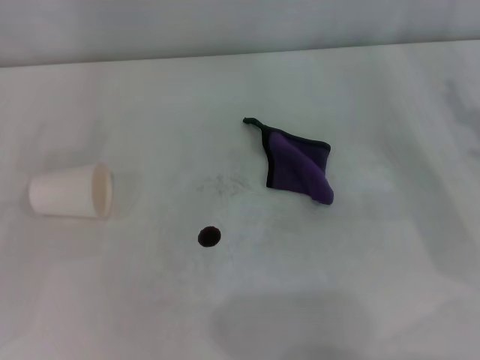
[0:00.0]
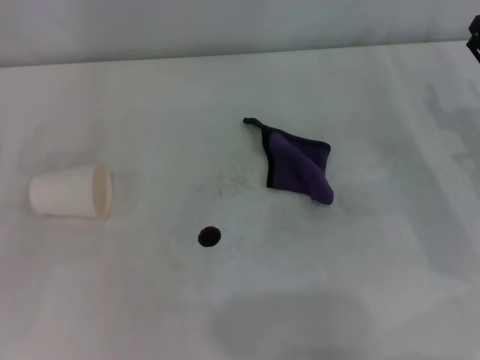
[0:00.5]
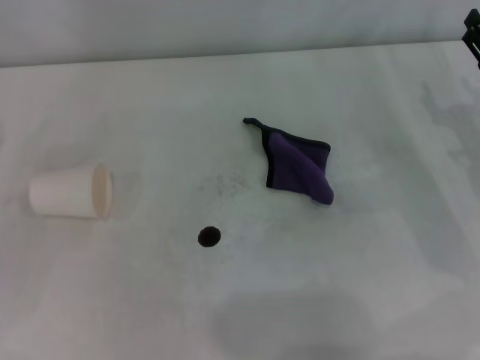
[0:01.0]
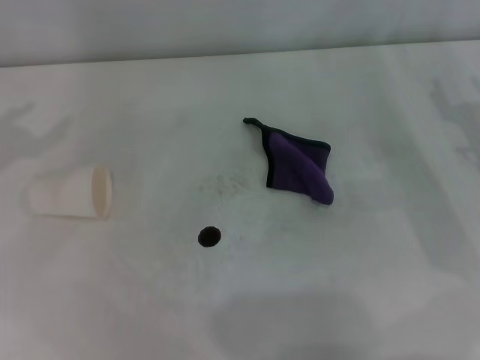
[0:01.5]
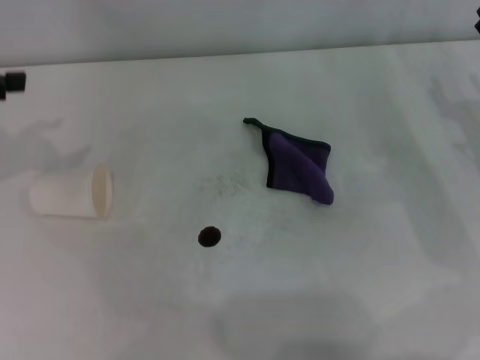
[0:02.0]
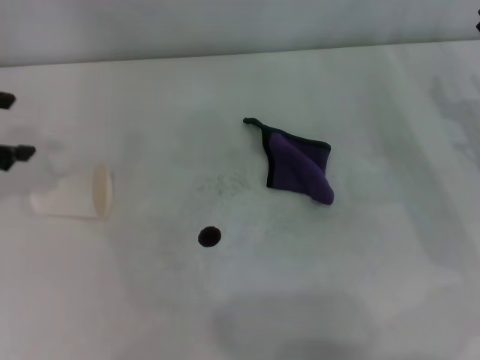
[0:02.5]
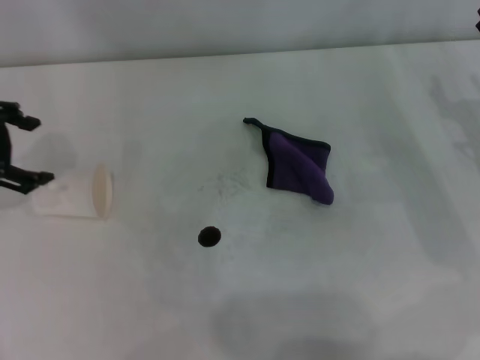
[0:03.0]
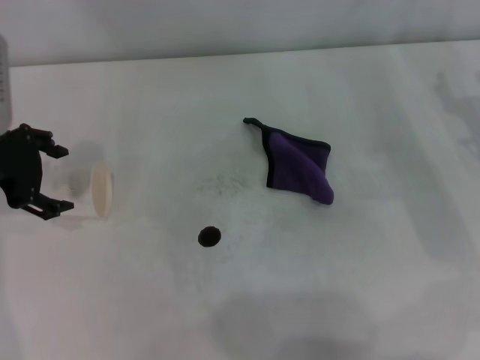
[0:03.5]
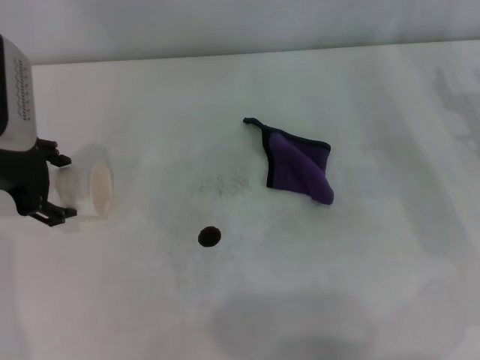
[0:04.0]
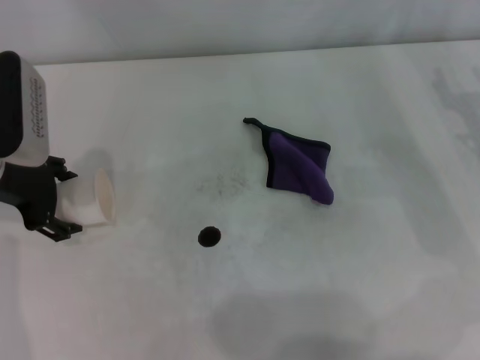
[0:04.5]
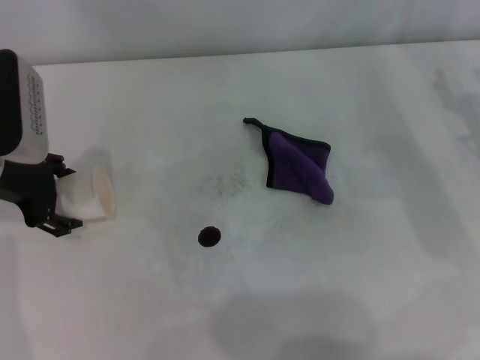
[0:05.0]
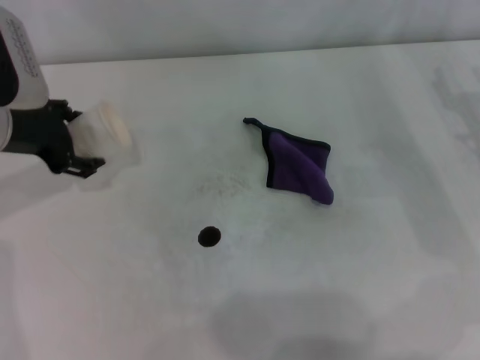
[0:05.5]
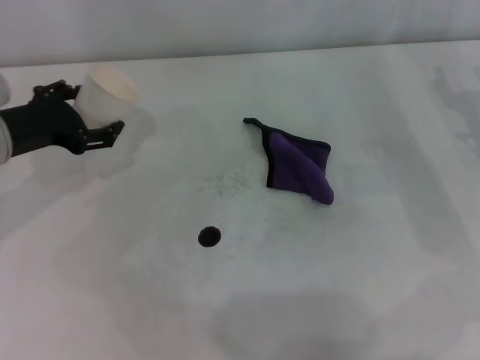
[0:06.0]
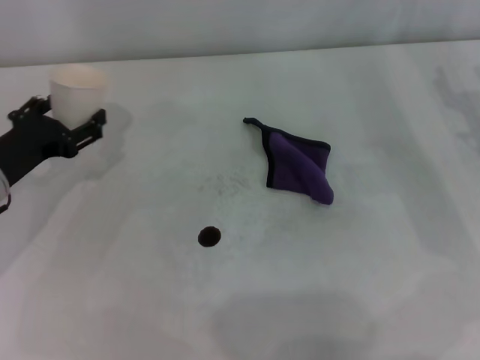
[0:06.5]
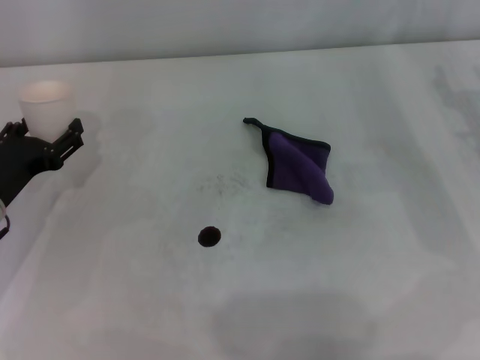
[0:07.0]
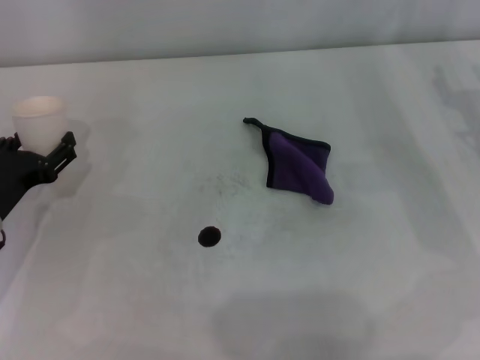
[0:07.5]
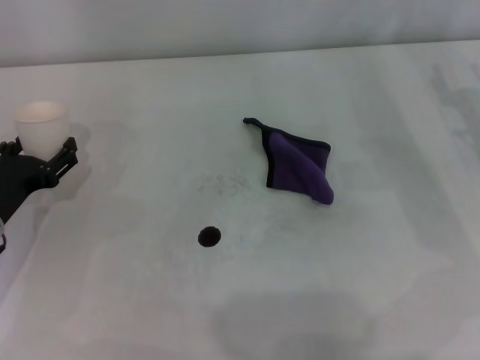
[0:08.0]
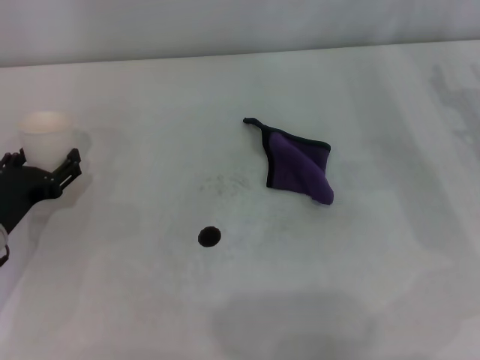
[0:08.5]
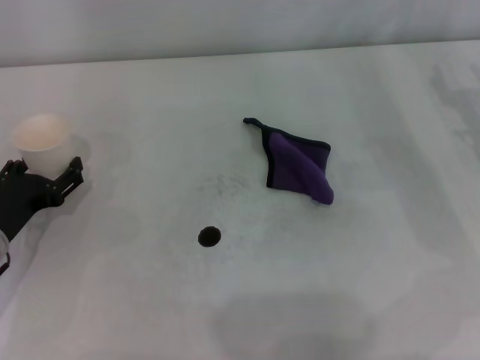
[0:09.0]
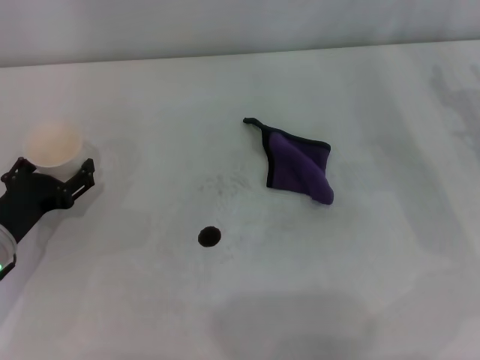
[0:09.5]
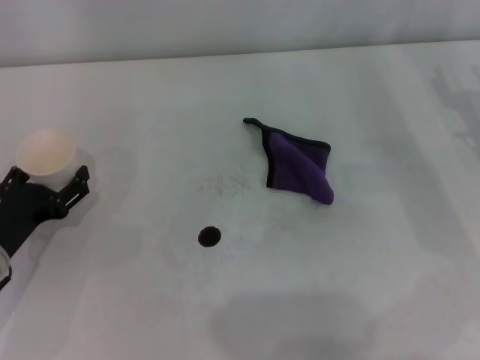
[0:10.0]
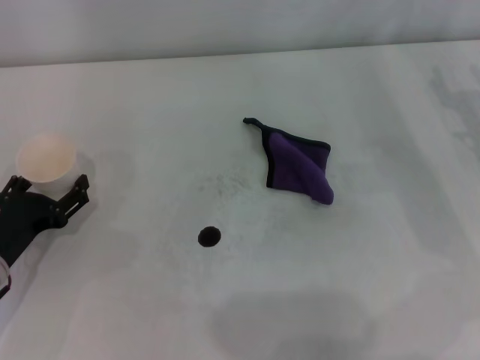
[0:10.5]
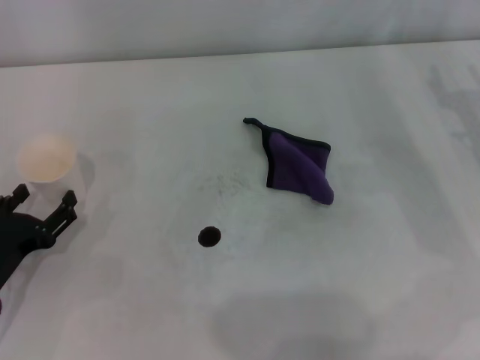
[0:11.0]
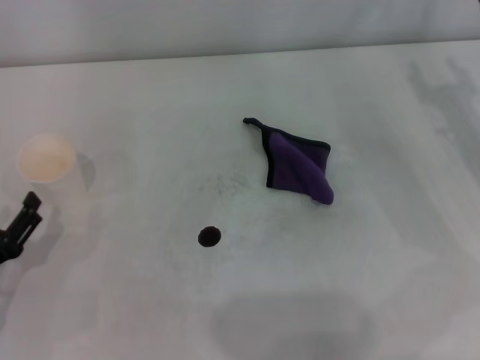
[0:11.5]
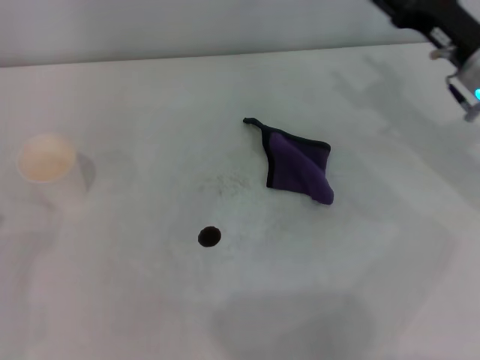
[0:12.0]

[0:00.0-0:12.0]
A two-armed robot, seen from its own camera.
Step, 0:00.0 to 0:04.5: Grasp the paper cup with the left gripper.
Step, 0:05.0 to 0:10.0: Stand the paper cup upright with the left gripper.
0:02.0 to 0:04.0: The left gripper travels to the right and downward by some 10 cm.
0:06.0 to 0:08.0: The left gripper heads downward and backward, covering roughly 10 cm.
0:08.0 to 0:10.0: The grippers move only a little.
0:10.0 to 0:12.0: The right gripper heads to the left, covering about 5 cm. Meanwhile the left gripper goes about 10 cm backward and to the left.

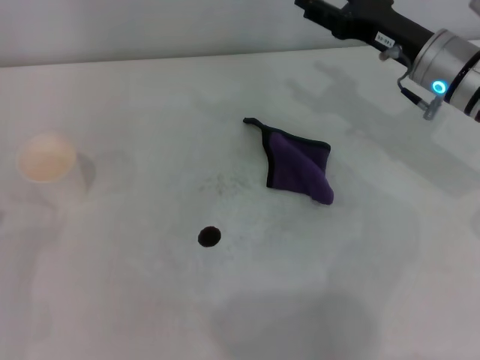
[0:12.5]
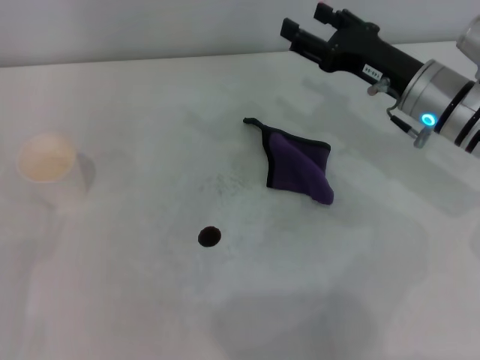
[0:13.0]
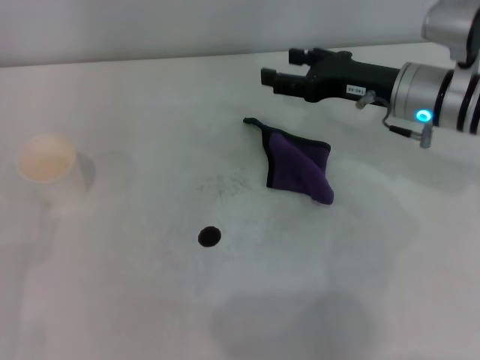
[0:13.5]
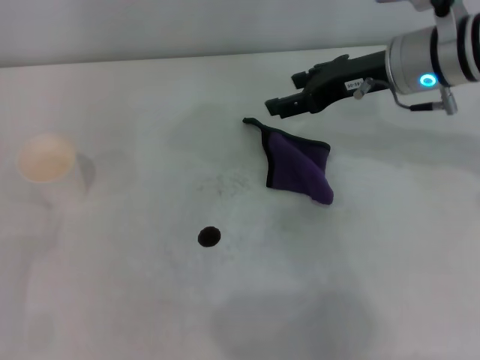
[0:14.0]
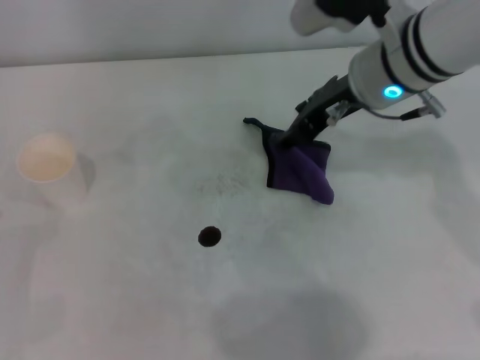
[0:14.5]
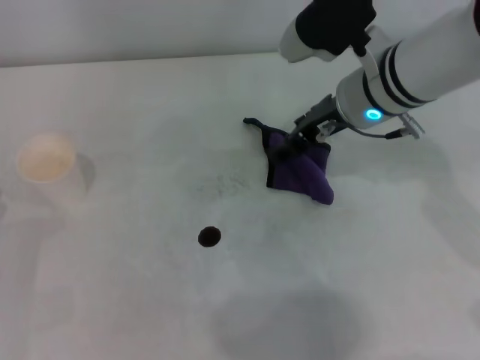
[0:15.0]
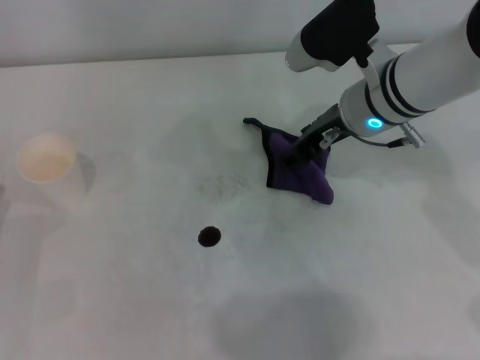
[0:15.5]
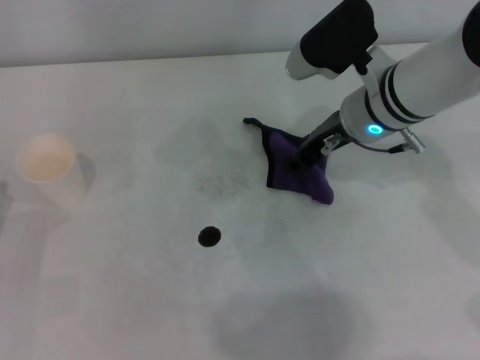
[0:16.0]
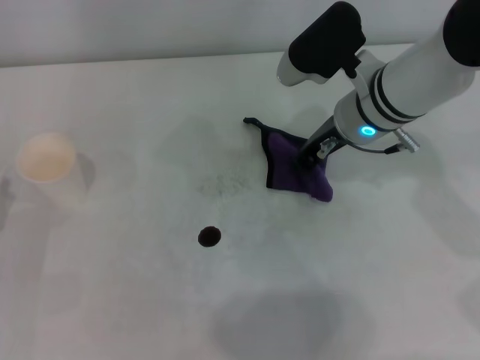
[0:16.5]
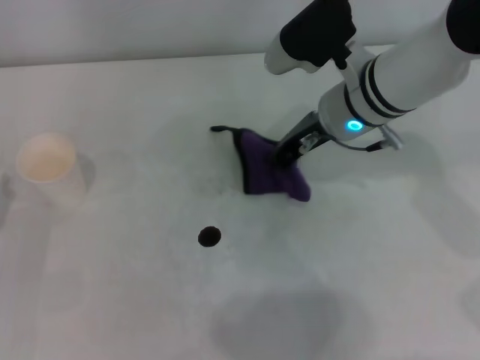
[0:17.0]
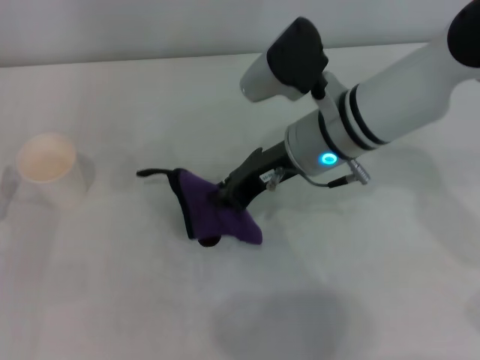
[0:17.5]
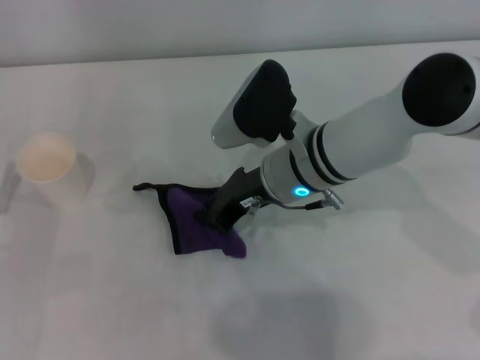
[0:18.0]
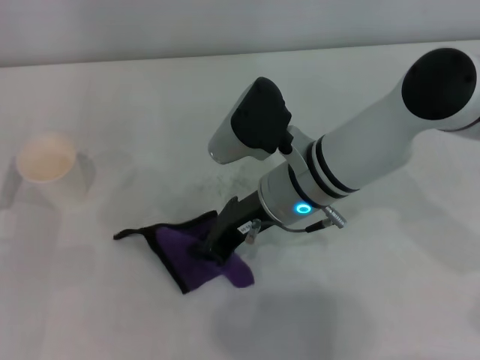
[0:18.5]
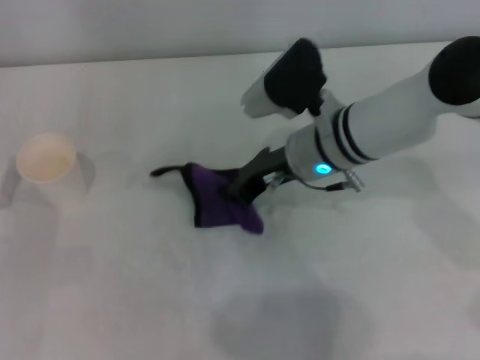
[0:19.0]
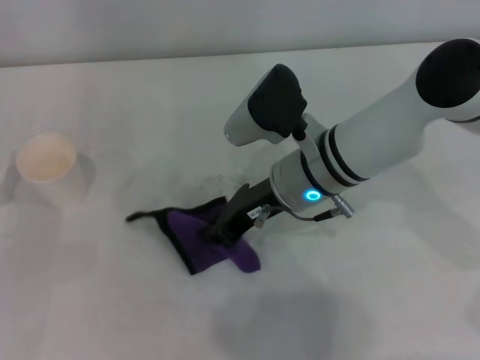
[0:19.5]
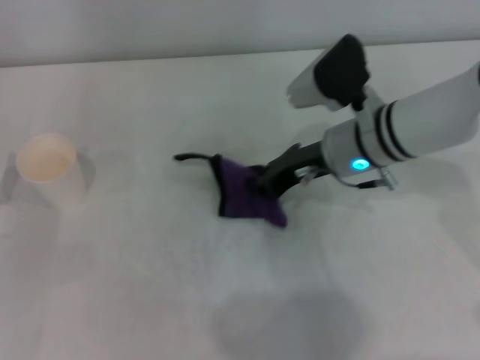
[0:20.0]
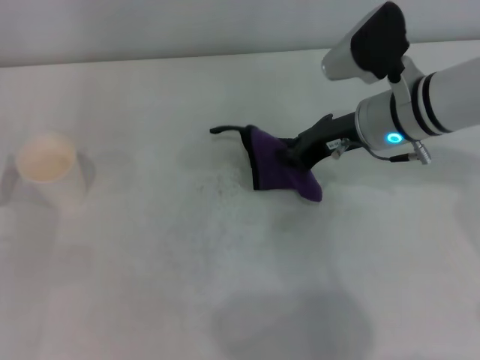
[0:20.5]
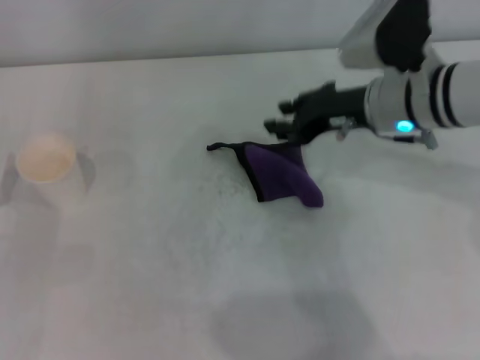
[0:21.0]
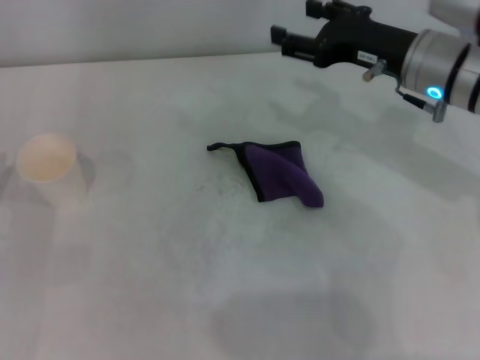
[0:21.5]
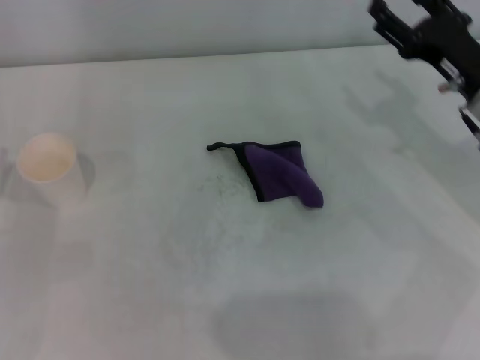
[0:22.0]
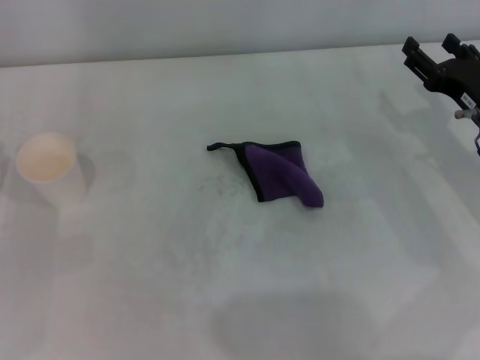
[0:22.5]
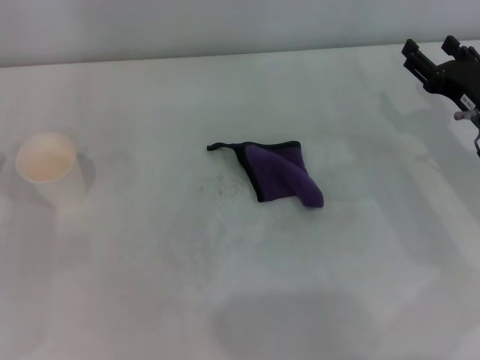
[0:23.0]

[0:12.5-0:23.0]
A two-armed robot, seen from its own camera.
Step, 0:12.5 to 0:16.5: Grasp the rag with the right gripper.
Step, 0:17.0 to 0:19.5: Wipe the stains off the table with the right gripper.
0:12.5 to 0:14.5: The right gripper is displaced to the left and upward by roughly 10 cm.
0:14.5 to 0:16.5: The right gripper shifts approximately 5 cm downward, and closes.
0:19.0 to 0:21.0: The right gripper shifts about 10 cm to the right.
0:21.0 to 0:23.0: The right gripper travels to the right and downward by approximately 15 cm, and opens.

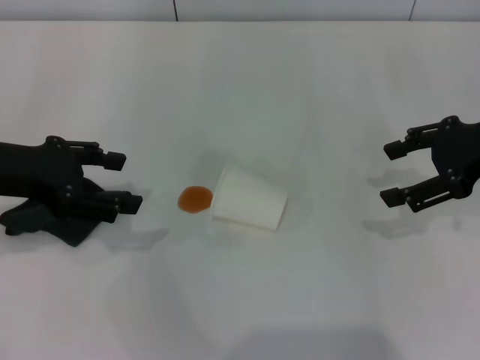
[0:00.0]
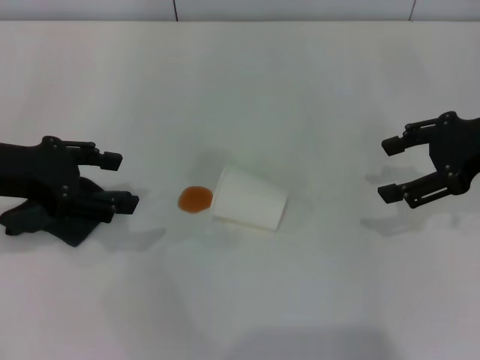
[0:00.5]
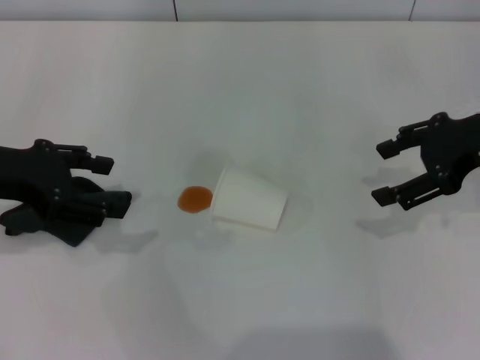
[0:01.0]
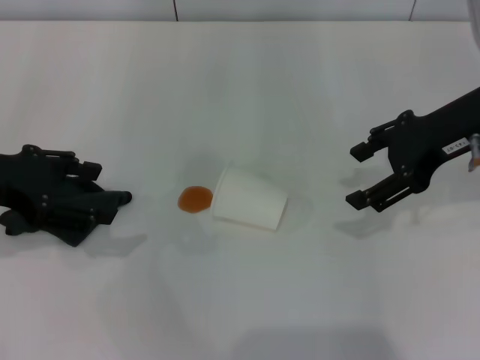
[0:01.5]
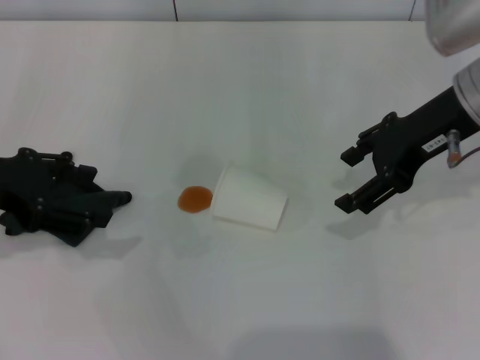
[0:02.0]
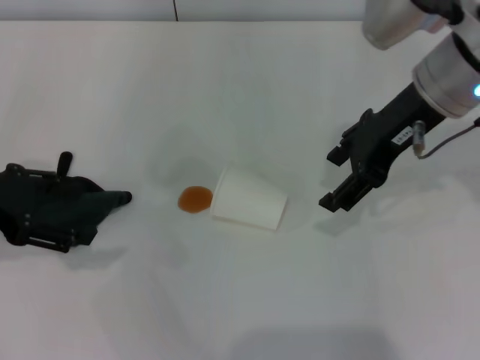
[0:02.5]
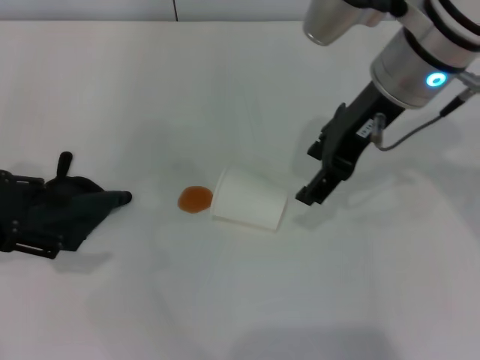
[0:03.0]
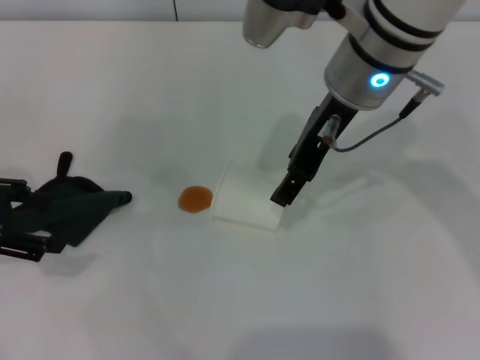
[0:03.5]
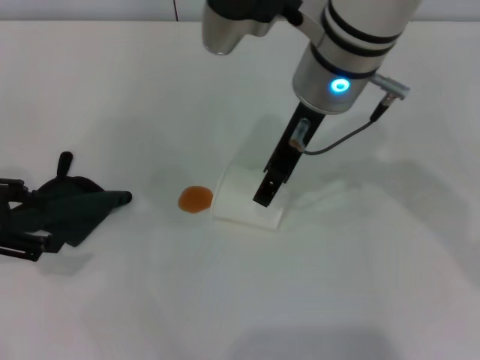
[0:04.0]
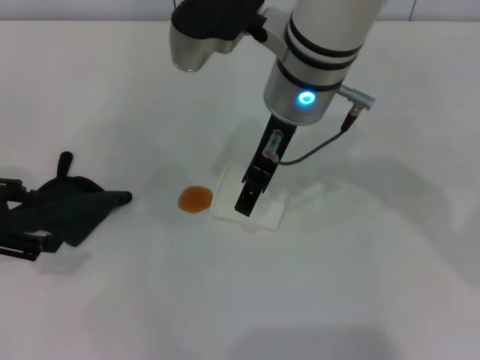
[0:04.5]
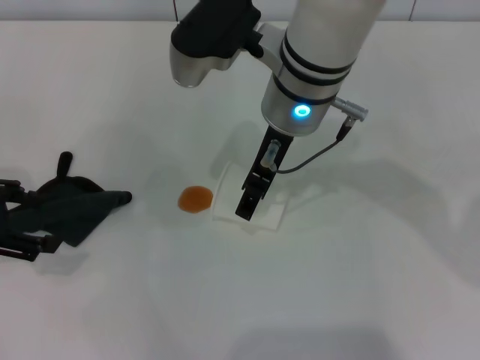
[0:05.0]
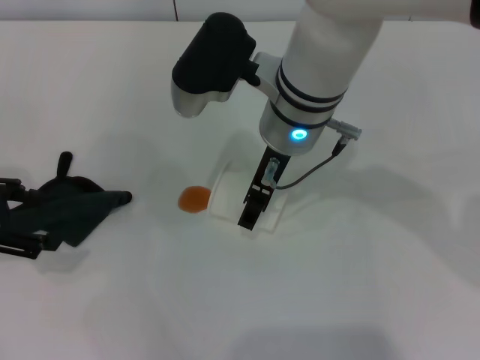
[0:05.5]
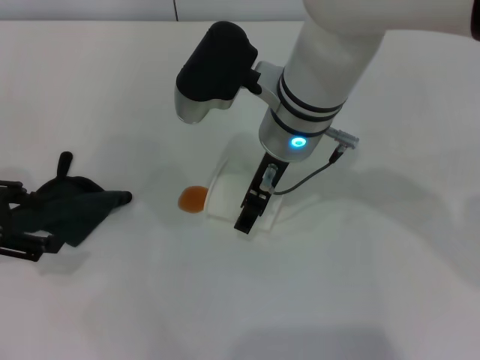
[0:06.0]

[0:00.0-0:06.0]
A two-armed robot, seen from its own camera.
0:00.0 to 0:02.0: The right gripper is displaced to the left by about 10 cm.
0:02.0 to 0:04.0: The right gripper heads to the left, covering roughly 15 cm.
0:04.0 to 0:06.0: The right gripper is displaced downward by approximately 5 cm.
